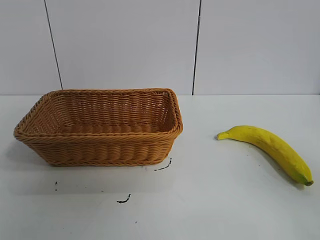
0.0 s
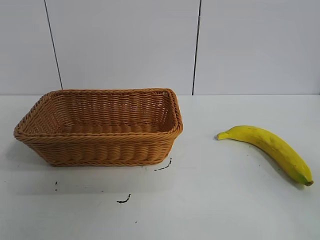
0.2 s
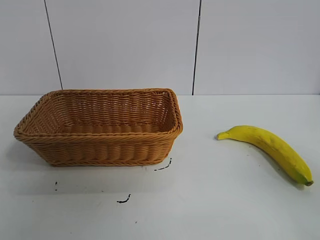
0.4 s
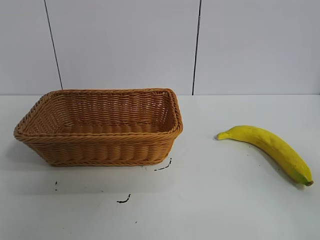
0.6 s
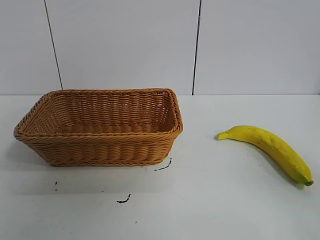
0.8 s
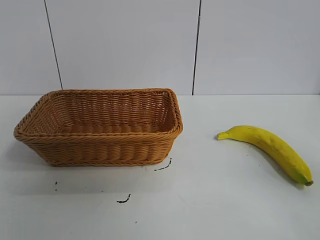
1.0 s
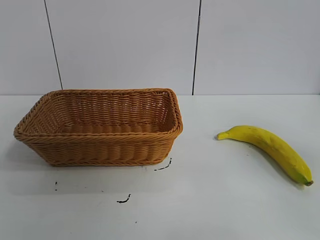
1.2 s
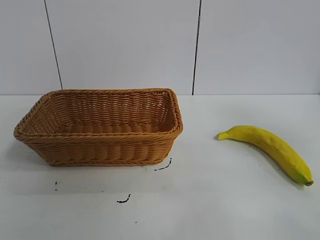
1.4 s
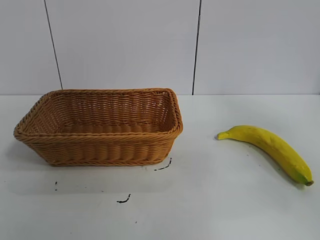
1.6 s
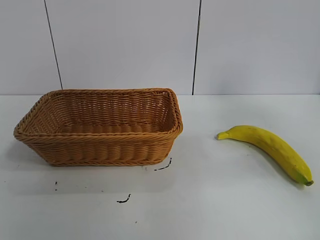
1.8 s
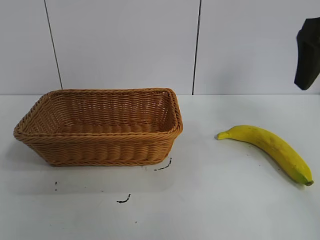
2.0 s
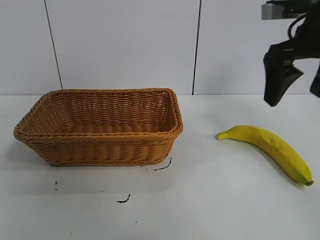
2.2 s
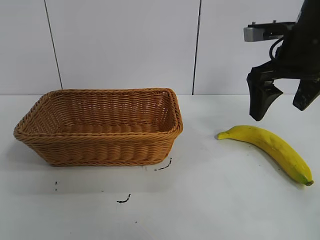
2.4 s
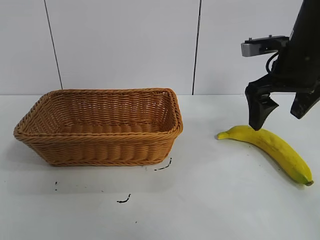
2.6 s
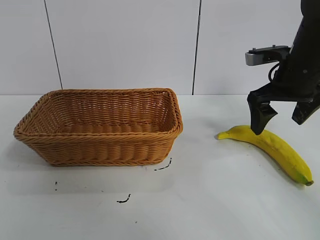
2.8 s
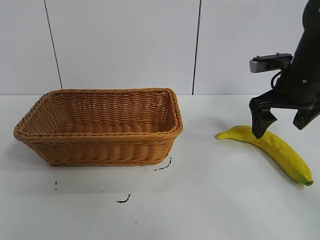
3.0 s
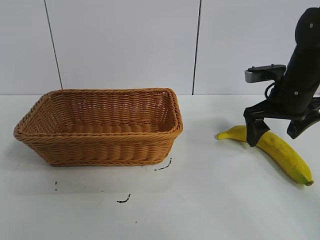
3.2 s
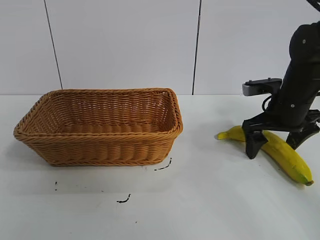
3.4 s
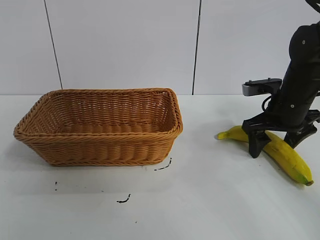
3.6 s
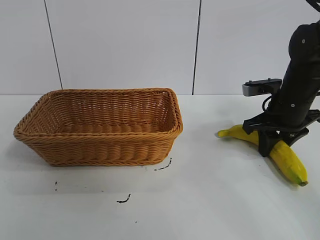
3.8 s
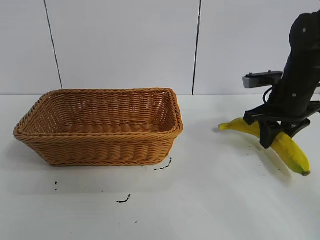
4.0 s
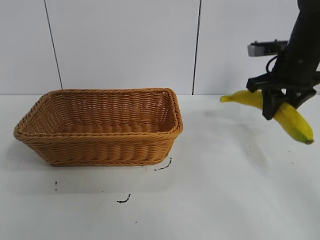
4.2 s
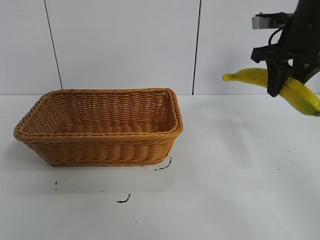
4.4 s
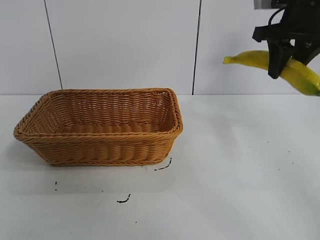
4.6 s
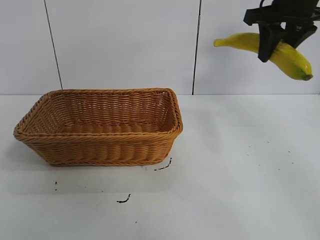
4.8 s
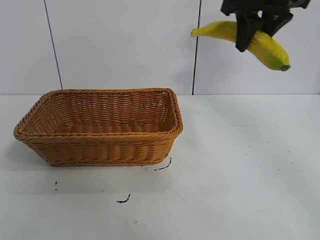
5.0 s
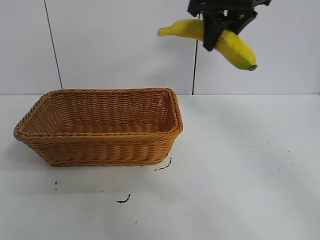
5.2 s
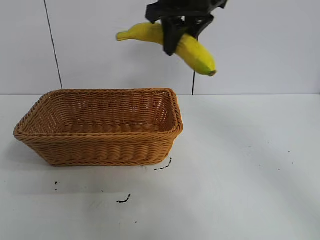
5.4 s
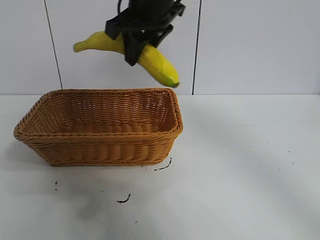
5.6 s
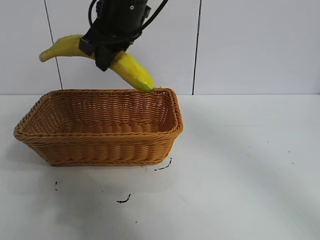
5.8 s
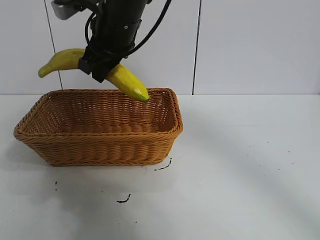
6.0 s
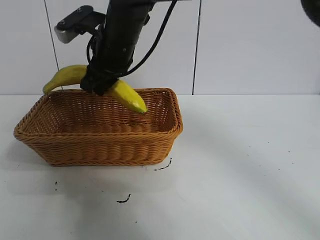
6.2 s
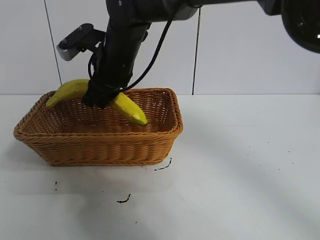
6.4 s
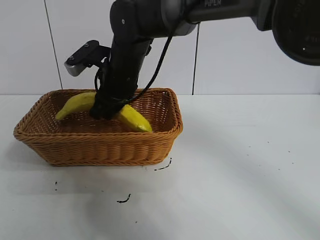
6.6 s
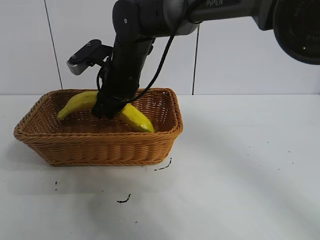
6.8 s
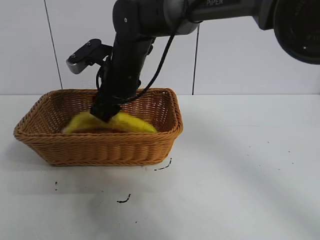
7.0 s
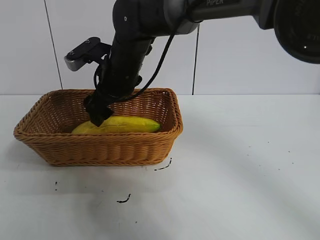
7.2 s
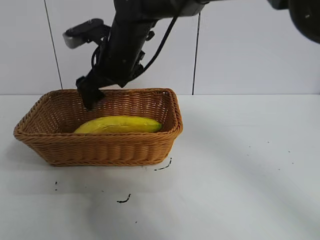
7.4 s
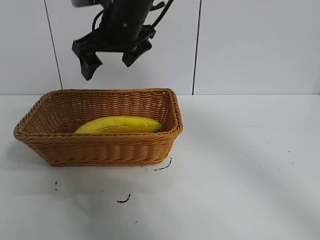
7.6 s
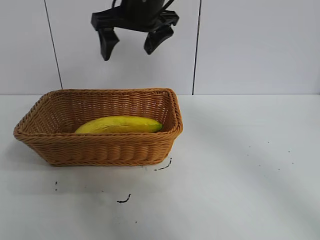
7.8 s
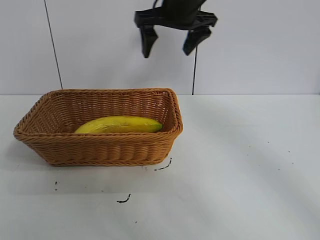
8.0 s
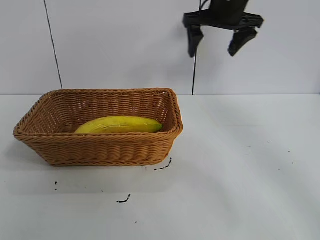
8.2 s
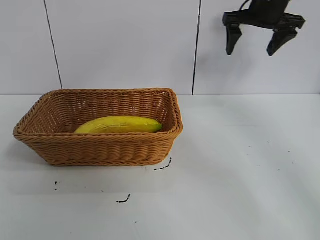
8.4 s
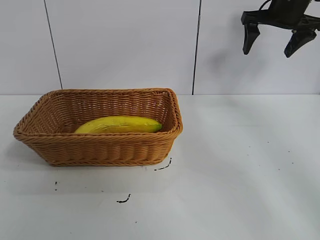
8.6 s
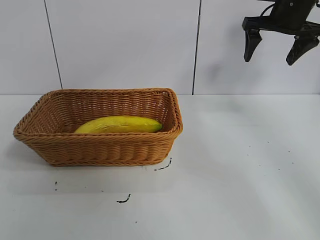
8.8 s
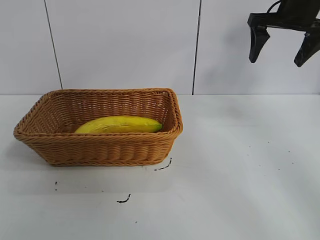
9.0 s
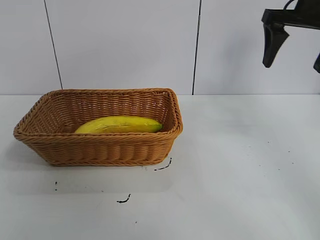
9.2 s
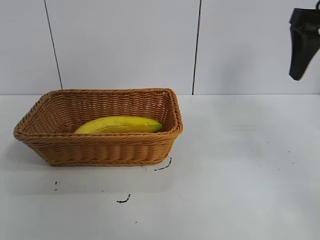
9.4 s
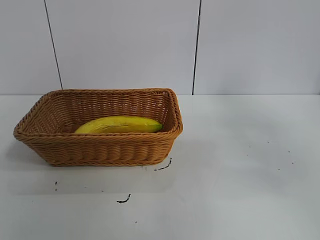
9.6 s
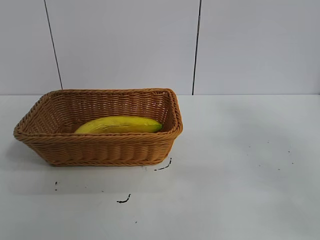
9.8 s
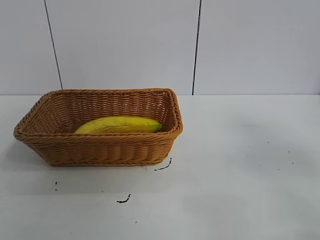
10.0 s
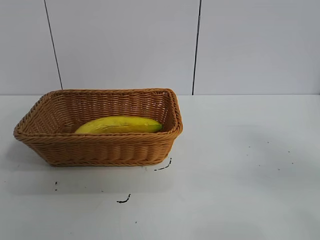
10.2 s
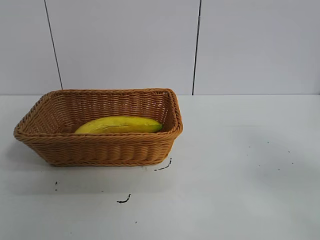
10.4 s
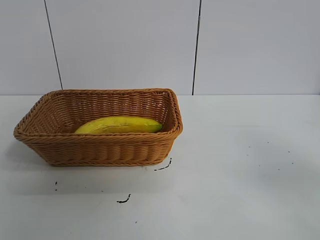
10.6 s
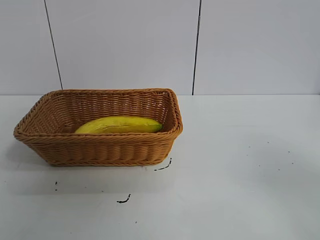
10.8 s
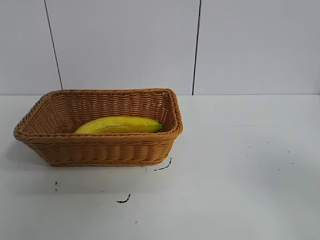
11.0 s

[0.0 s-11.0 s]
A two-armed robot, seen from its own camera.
Task of the whole recording: pick up the banana and put it into the basket.
Step, 0.8 to 3.6 s: Grasp the banana with right gripper.
Step, 4.0 to 7.4 s: Place the banana in the basket with right gripper.
